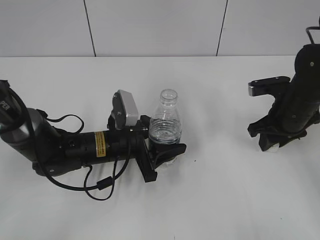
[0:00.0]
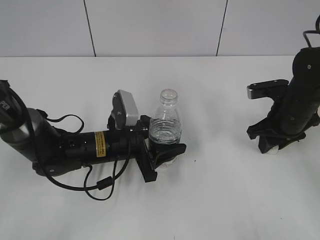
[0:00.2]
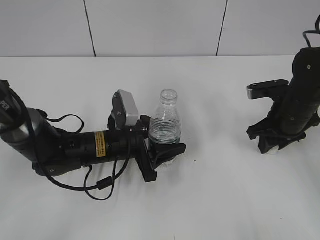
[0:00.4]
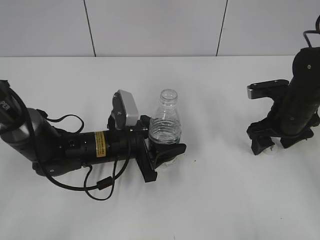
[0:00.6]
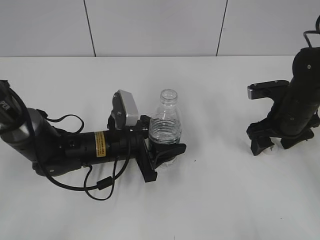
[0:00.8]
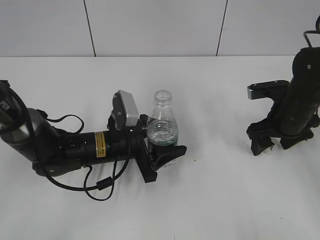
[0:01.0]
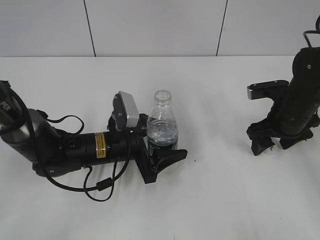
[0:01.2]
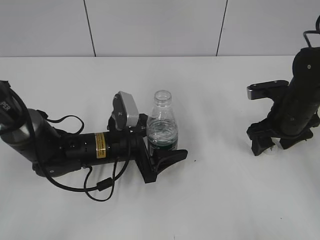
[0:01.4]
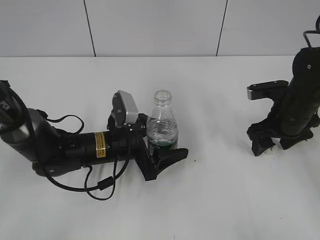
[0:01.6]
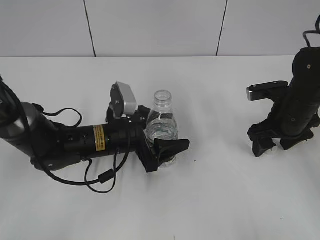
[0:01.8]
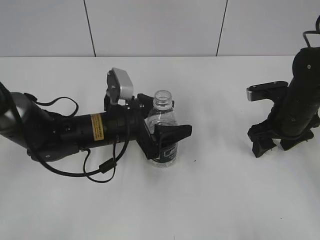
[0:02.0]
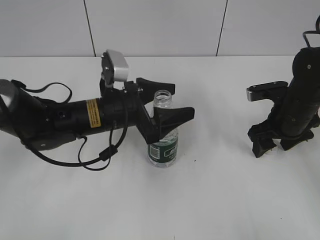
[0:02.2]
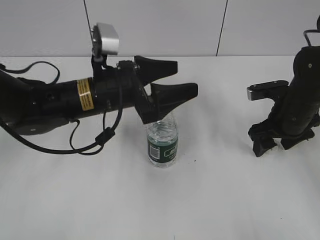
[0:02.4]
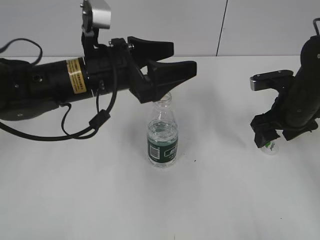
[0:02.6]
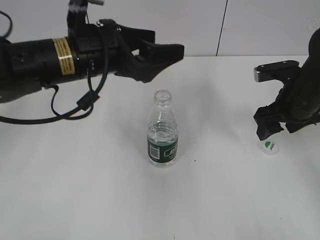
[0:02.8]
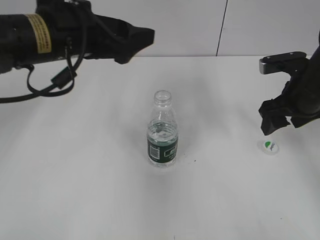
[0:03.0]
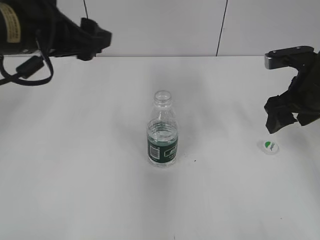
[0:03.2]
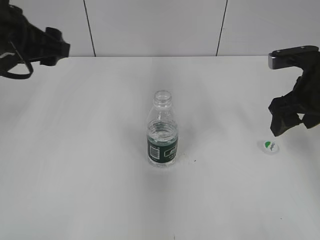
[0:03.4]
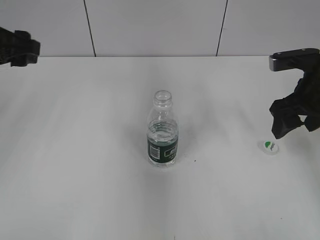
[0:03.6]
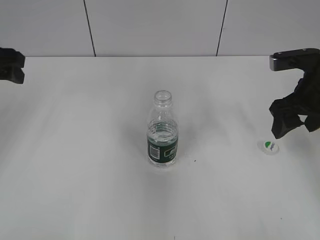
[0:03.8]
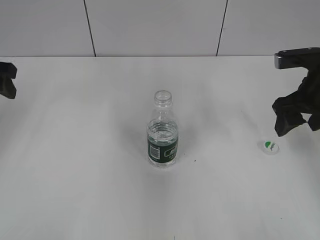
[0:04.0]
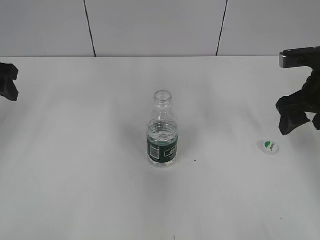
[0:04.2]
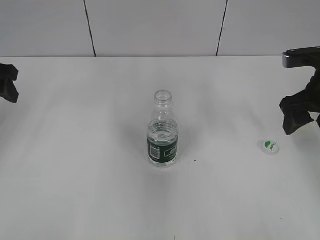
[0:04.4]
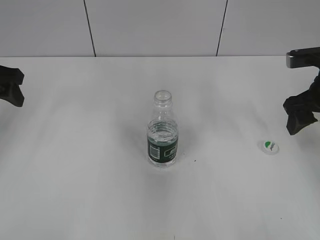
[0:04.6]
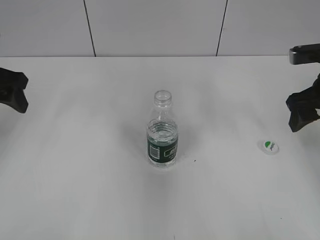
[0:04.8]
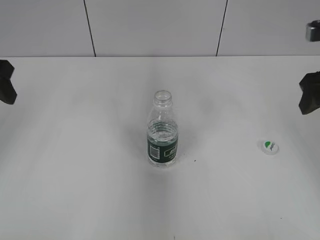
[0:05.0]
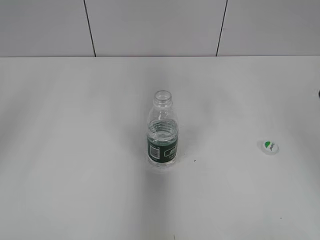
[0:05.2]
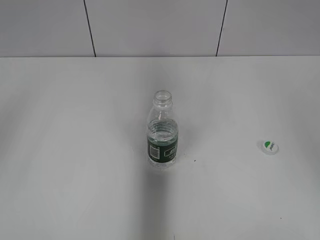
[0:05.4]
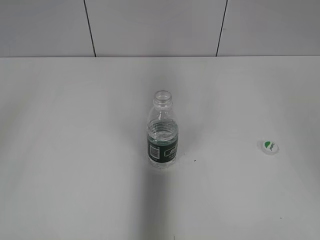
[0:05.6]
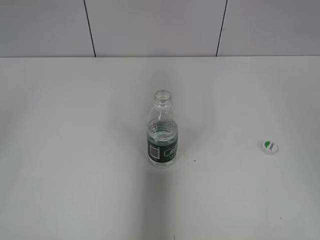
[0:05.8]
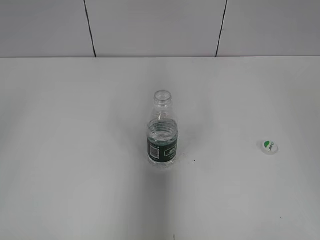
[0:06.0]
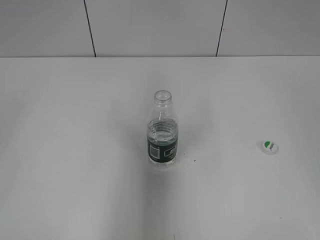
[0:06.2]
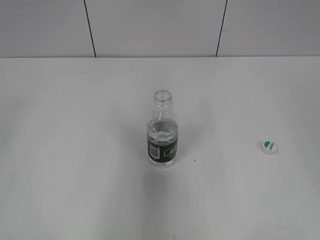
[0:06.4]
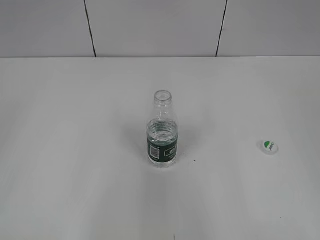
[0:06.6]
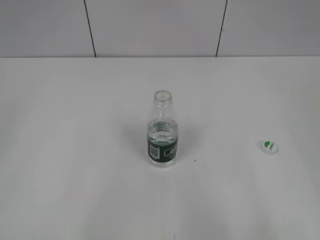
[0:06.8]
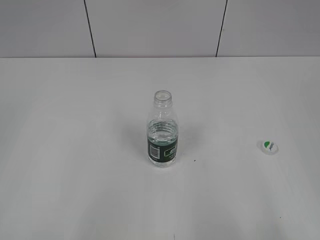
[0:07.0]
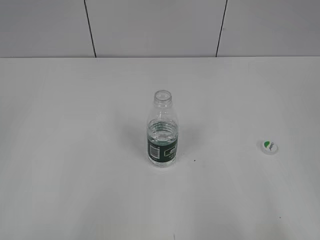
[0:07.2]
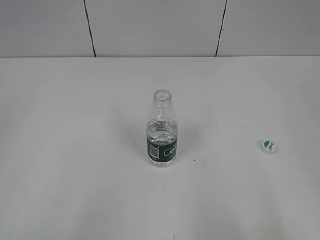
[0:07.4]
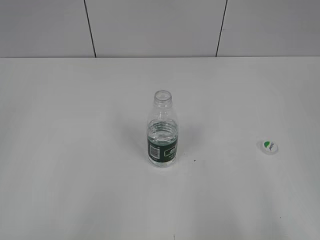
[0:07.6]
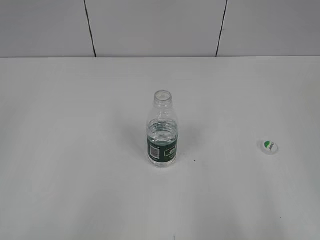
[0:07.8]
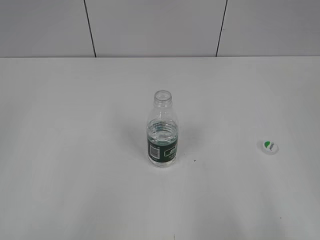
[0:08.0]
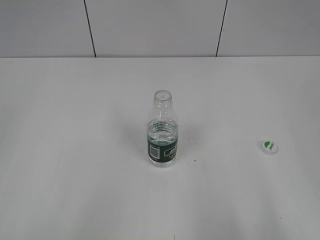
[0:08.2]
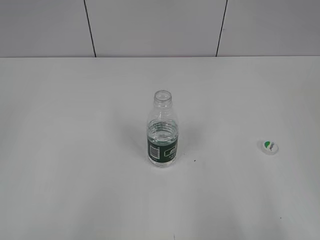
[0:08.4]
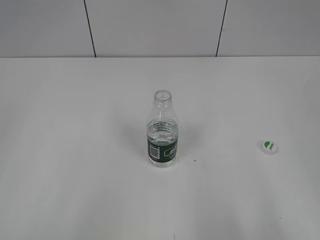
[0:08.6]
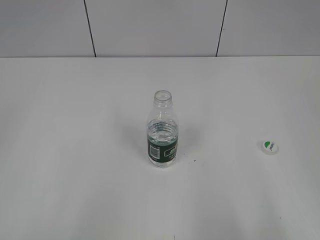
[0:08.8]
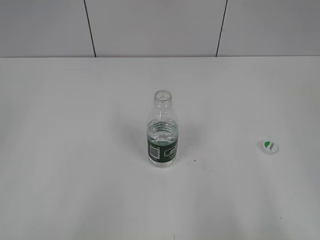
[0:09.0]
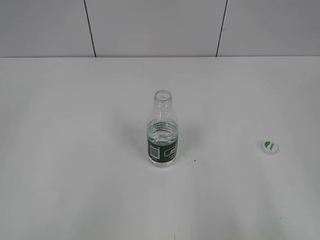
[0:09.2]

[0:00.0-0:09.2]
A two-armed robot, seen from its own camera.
Step, 0:00.8 to 0:02.2: Place the bottle on the table with the left gripper.
0:00.0 to 0:01.6: The left gripper opens. Meanwhile the right gripper opens.
0:01.6 to 0:03.0: The left gripper heads upward, covering about 20 cm, while the right gripper heads upward, covering approximately 5 cm.
0:03.0 to 0:04.6: The left gripper moves to the left, about 20 cm.
0:04.6 to 0:06.2: Both grippers travel together backward and upward, about 35 cm.
0:06.2 to 0:07.6: The left gripper goes approximately 10 cm downward. Meanwhile the right gripper shifts some 15 cm downward and backward.
0:07.6 to 0:09.2: The two grippers keep their place.

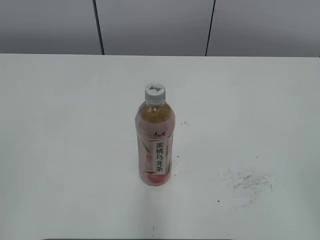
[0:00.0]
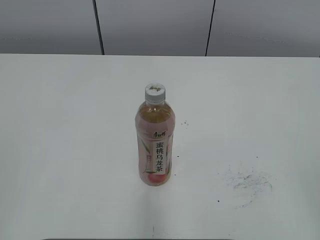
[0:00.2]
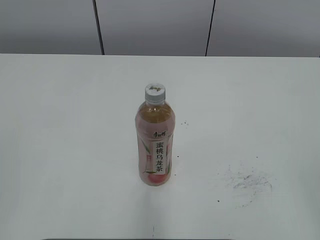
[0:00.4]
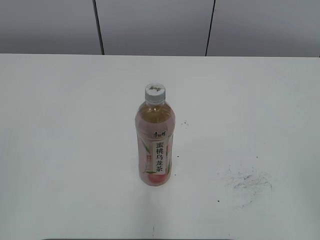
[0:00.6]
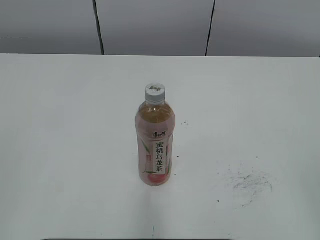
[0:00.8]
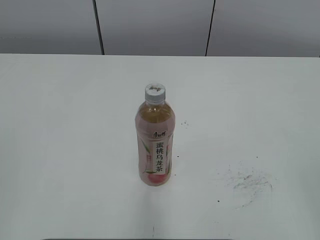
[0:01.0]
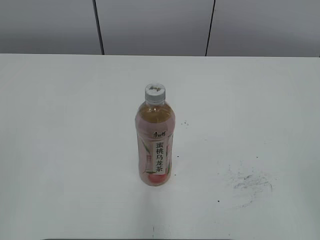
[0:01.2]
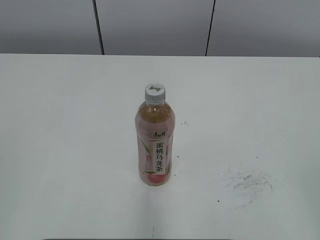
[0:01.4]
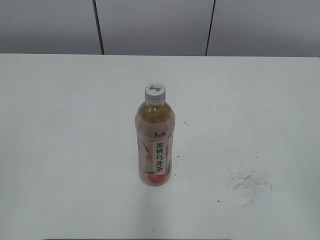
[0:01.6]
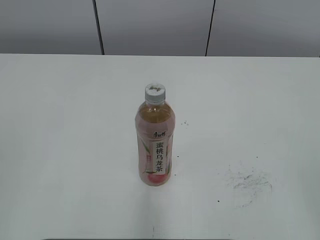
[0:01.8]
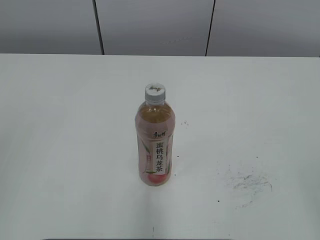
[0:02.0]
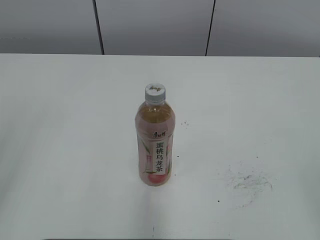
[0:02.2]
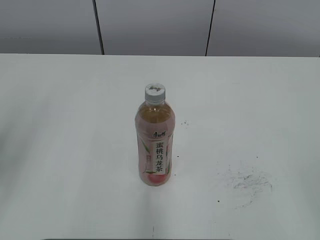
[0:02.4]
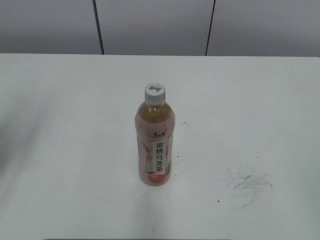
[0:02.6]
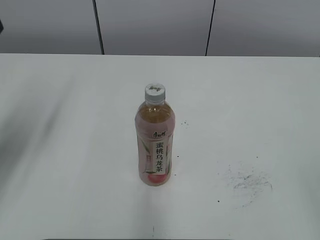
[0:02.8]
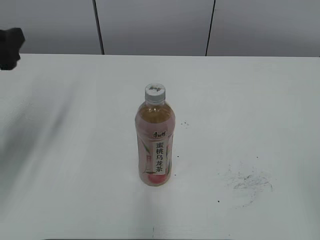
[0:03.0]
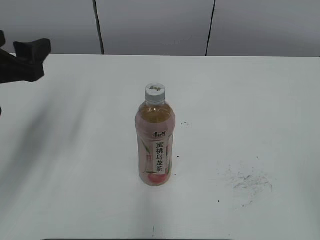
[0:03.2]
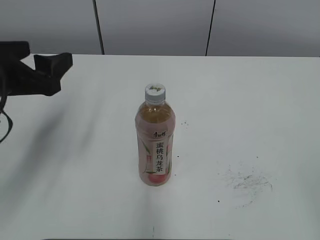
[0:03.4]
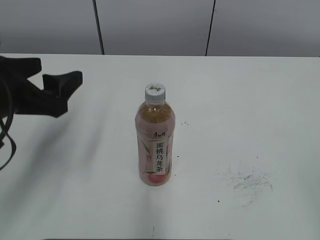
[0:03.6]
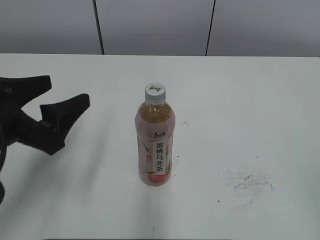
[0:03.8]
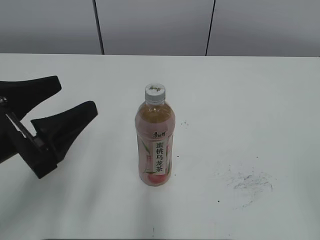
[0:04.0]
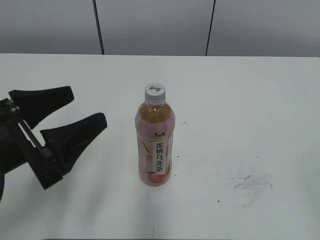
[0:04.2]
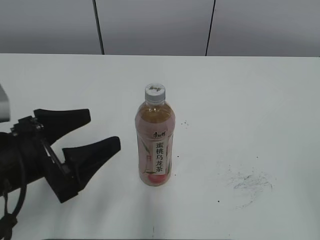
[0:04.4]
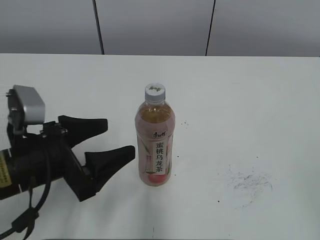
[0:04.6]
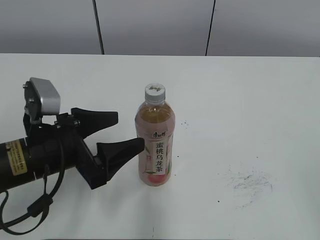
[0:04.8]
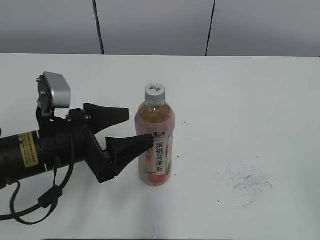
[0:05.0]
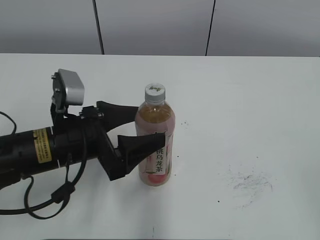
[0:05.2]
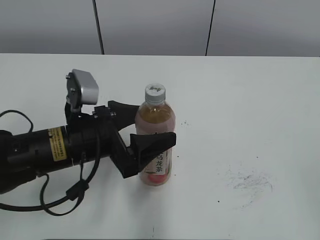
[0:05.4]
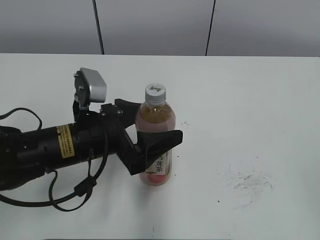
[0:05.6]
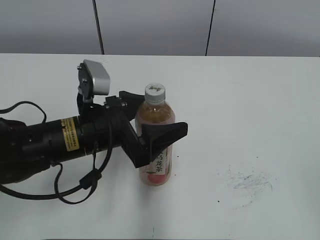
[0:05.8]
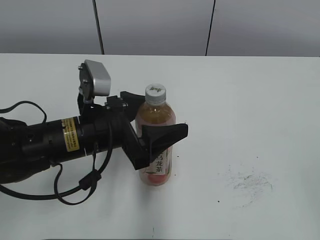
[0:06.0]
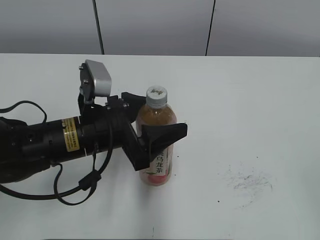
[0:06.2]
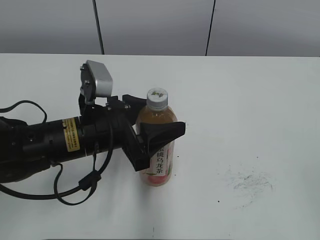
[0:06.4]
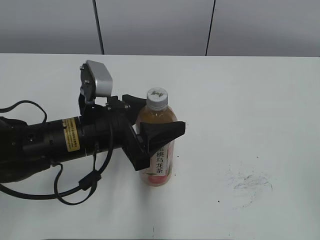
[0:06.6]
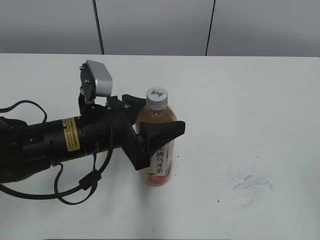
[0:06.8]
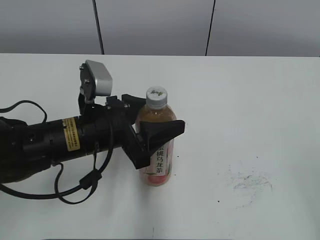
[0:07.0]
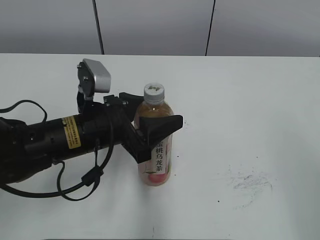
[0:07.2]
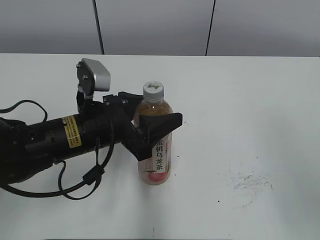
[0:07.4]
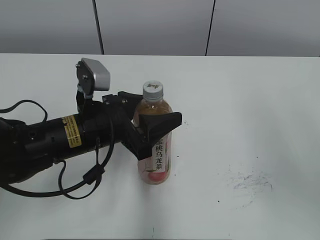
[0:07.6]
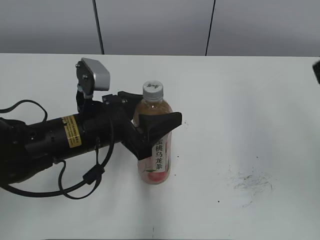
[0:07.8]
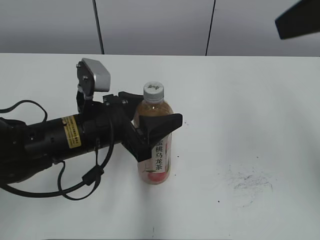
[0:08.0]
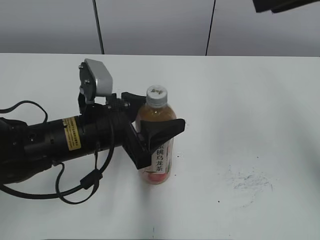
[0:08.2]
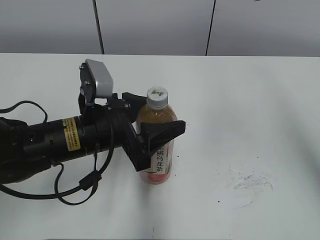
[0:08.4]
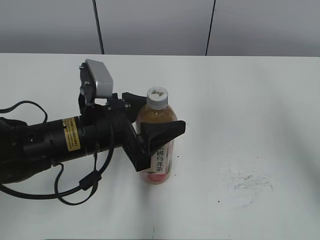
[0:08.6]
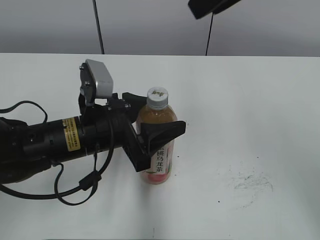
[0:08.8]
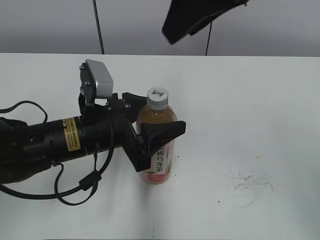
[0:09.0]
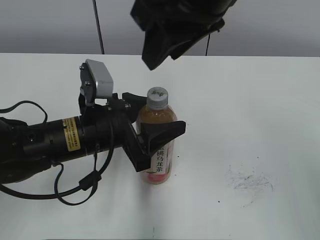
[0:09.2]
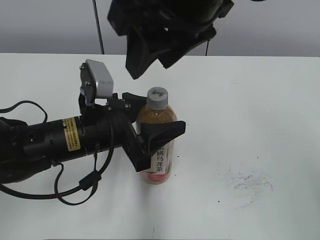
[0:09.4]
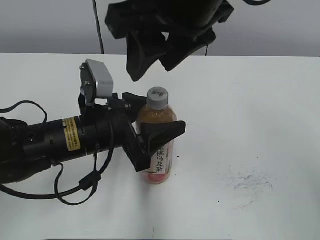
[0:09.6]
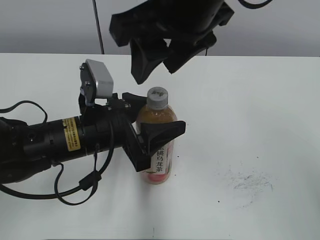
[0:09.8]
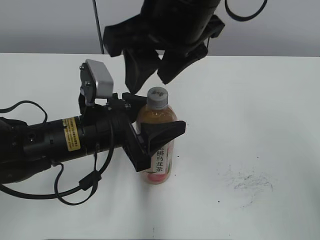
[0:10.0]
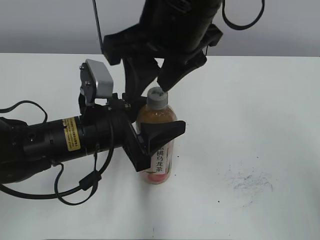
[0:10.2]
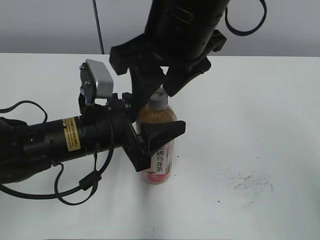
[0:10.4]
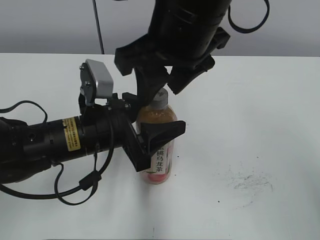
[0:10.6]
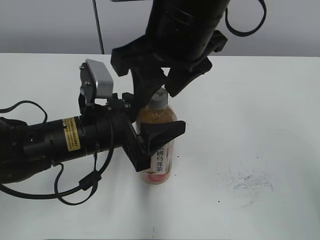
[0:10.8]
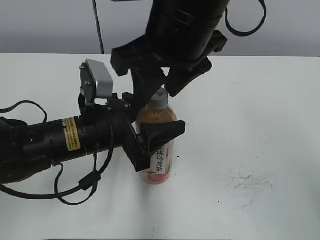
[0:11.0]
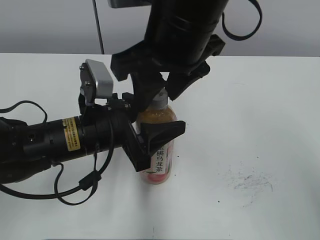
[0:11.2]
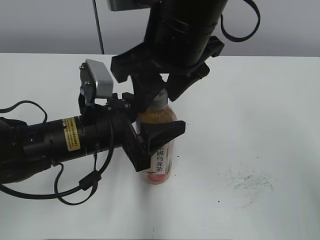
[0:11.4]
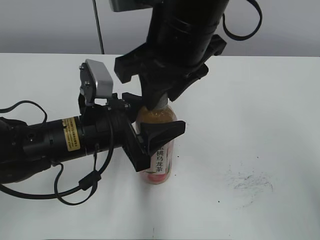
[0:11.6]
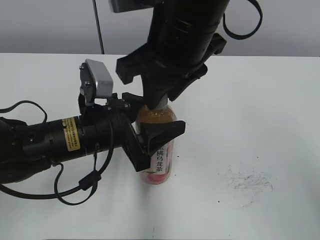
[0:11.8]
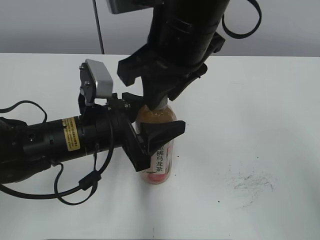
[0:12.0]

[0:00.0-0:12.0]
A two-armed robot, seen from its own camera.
Step, 0:00.0 to 0:10.6: Grab the Peach Oolong Tea with the left hand.
0:01.6 to 0:03.0: The left gripper is displaced forward by roughly 25 cm, and opens its fingers.
0:03.0 to 0:04.4: The left gripper goes about 15 cm downward, to the right and backward.
0:04.4 to 0:06.0: The left gripper heads to the right and forward, covering approximately 10 cm.
0:06.0 to 0:07.6: The right gripper heads forward and upward, covering about 15 cm, and closes, while the left gripper closes its fingers.
0:07.6 to 0:09.0: The right gripper shifts some 20 cm to the left and forward.
0:09.0 to 0:10.4: The right gripper heads downward and to the left, covering roughly 10 cm.
0:10.4 to 0:12.0: The right gripper closes.

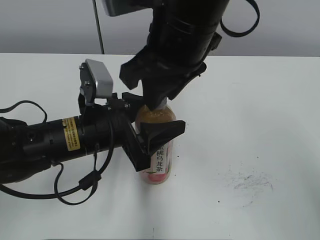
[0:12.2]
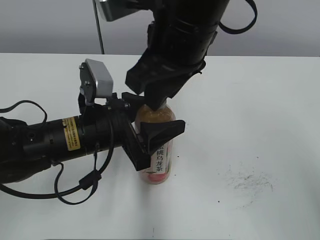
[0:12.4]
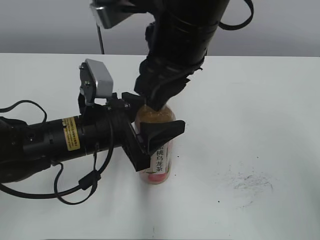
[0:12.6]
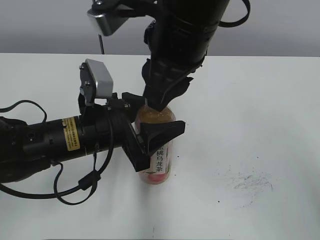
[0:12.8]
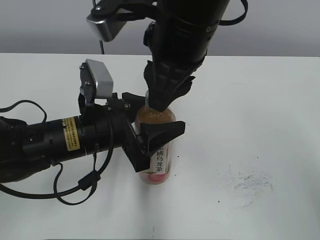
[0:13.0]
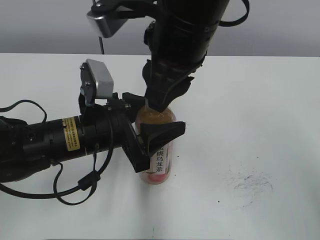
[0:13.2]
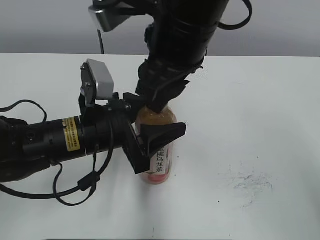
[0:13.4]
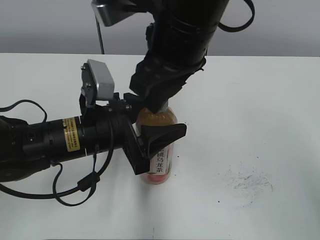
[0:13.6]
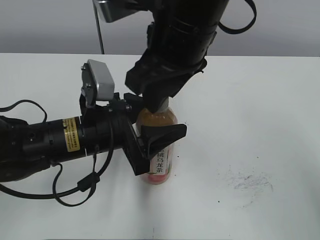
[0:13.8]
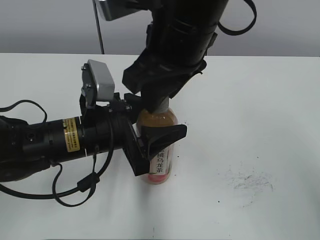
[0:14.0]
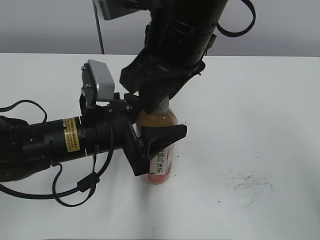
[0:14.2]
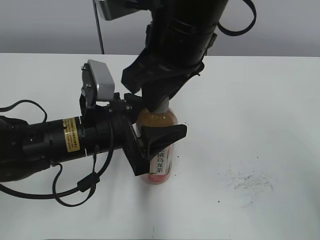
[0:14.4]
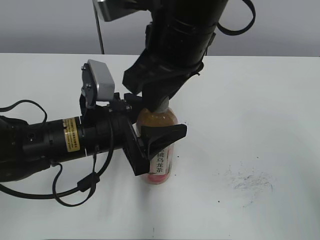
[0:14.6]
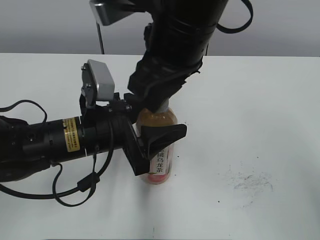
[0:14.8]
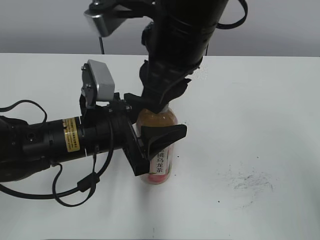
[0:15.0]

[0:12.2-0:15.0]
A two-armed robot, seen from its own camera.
0:13.6 to 0:15.0: The grippers make only small movements.
